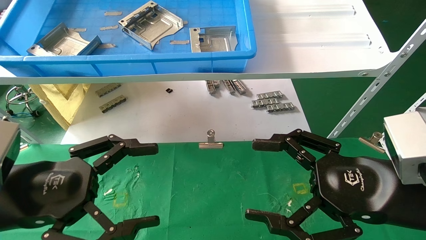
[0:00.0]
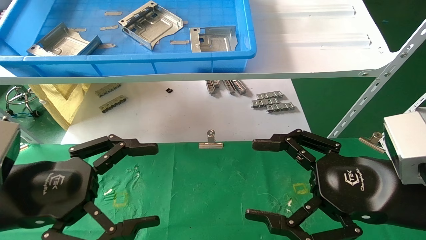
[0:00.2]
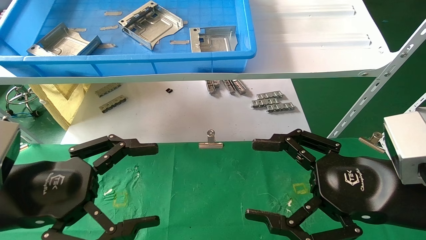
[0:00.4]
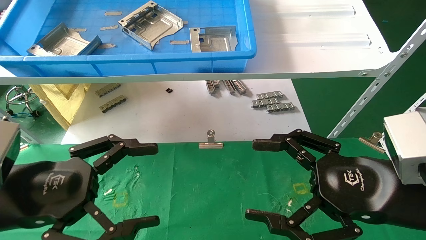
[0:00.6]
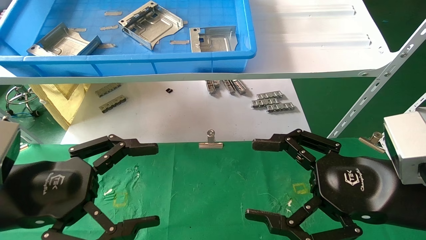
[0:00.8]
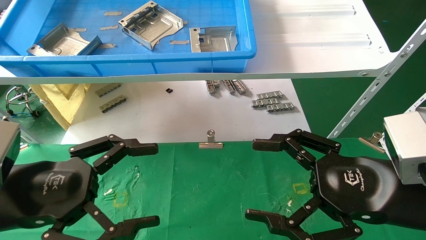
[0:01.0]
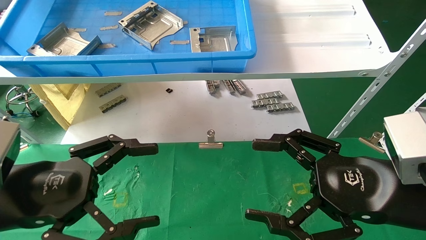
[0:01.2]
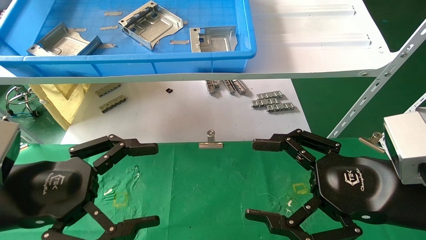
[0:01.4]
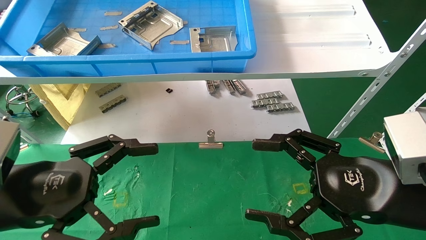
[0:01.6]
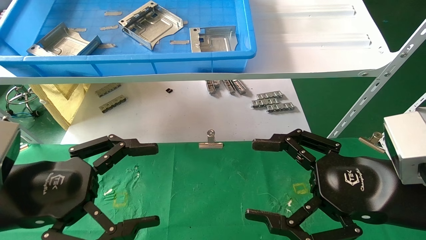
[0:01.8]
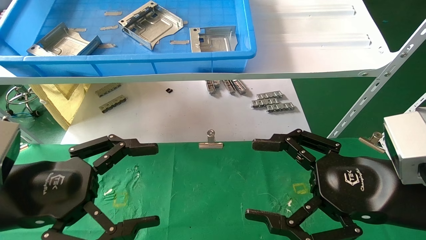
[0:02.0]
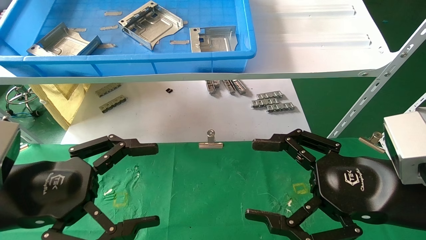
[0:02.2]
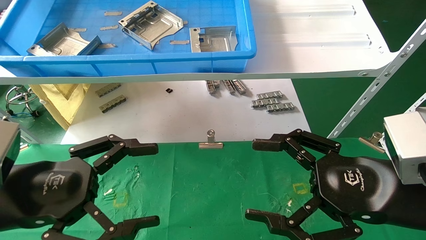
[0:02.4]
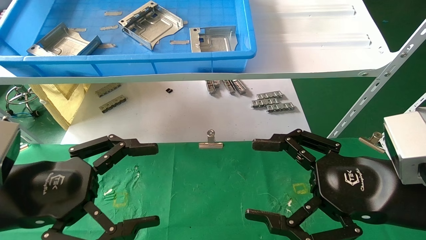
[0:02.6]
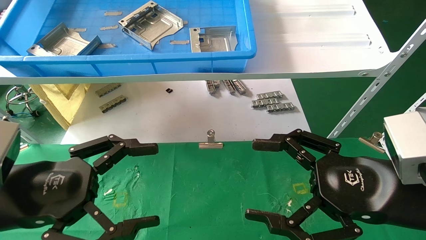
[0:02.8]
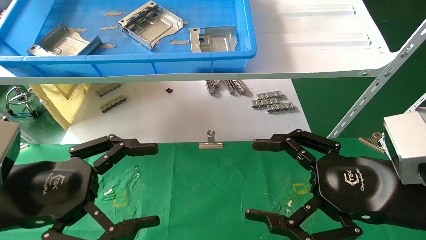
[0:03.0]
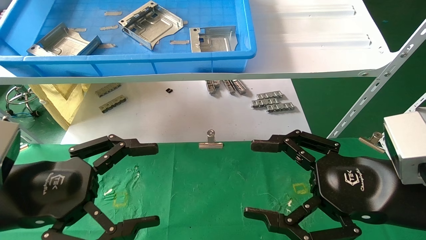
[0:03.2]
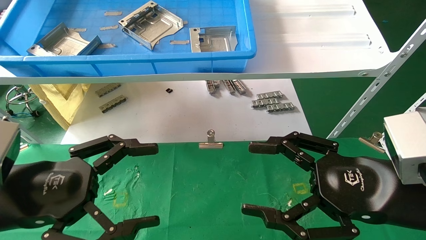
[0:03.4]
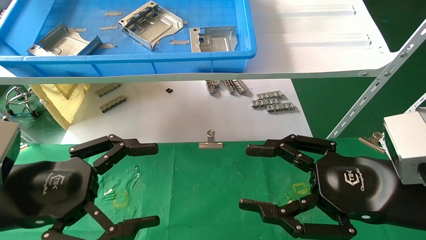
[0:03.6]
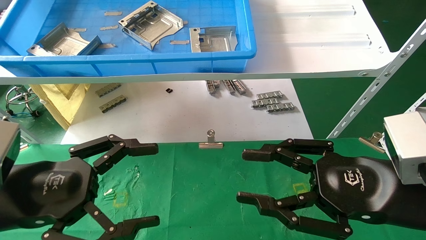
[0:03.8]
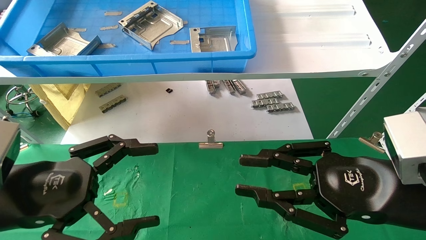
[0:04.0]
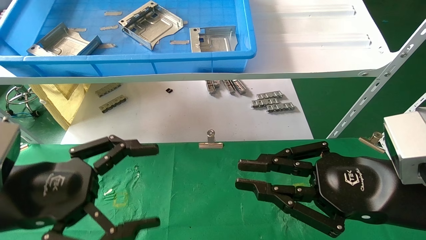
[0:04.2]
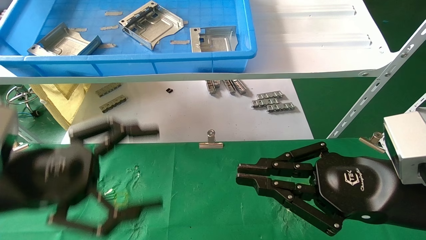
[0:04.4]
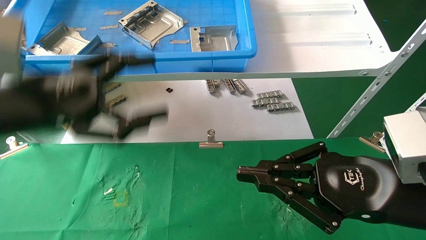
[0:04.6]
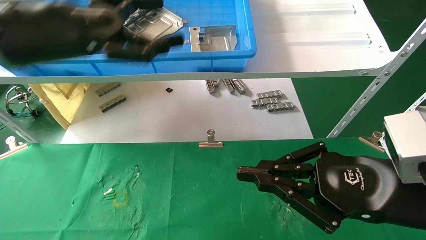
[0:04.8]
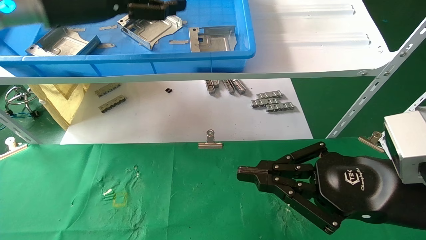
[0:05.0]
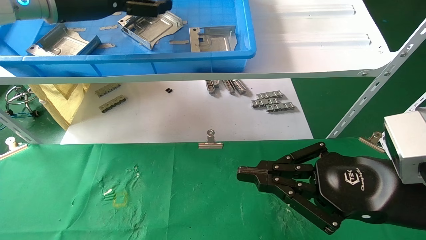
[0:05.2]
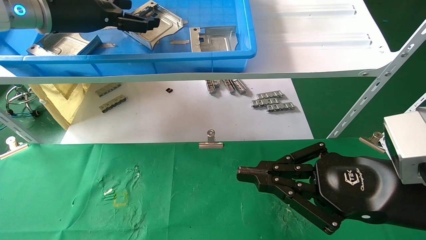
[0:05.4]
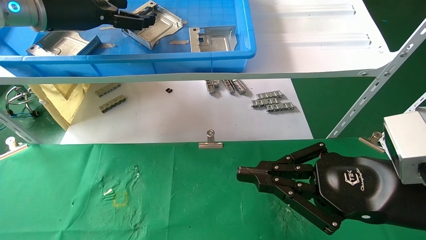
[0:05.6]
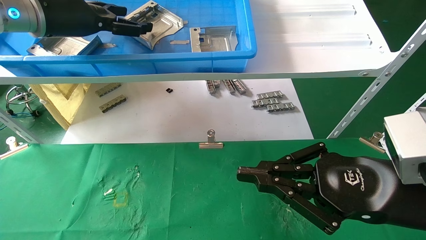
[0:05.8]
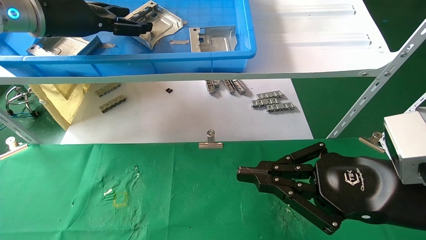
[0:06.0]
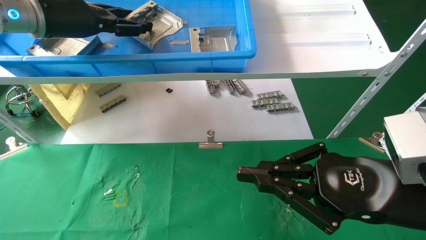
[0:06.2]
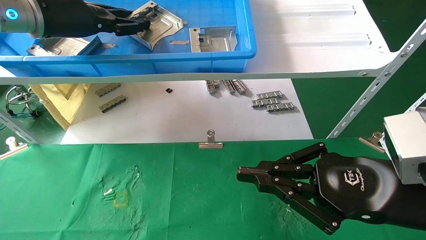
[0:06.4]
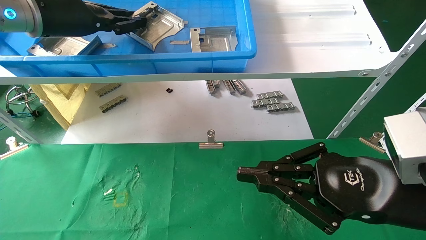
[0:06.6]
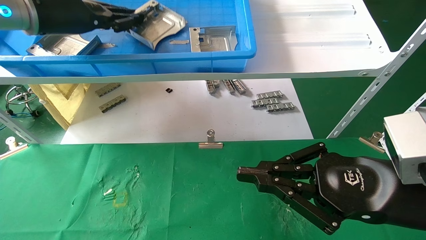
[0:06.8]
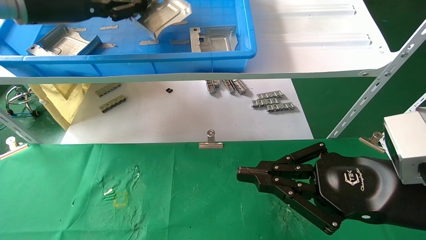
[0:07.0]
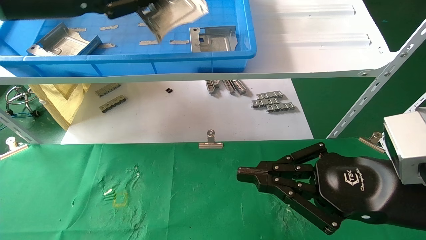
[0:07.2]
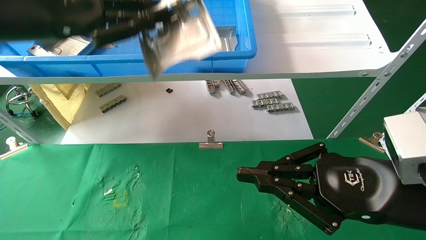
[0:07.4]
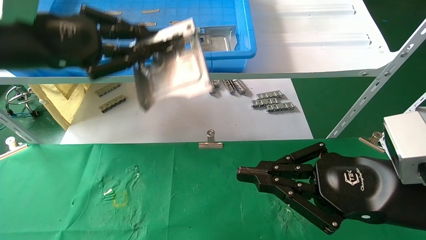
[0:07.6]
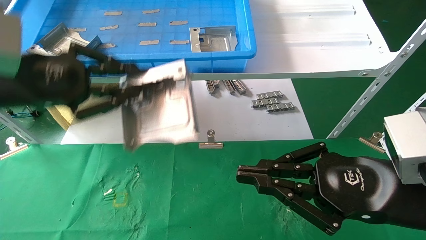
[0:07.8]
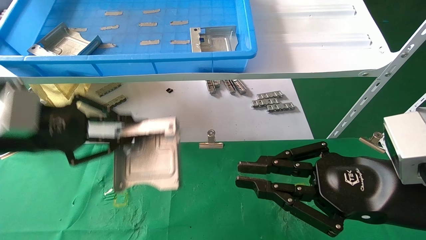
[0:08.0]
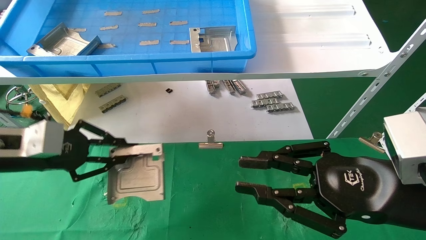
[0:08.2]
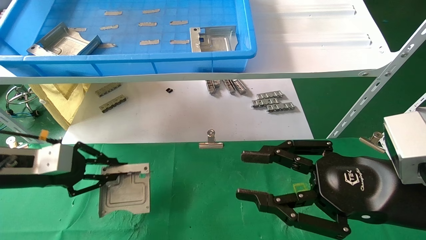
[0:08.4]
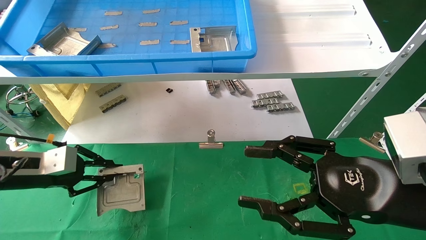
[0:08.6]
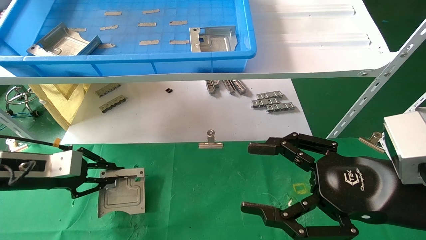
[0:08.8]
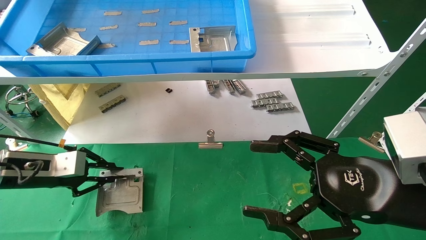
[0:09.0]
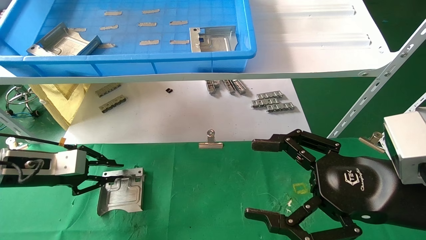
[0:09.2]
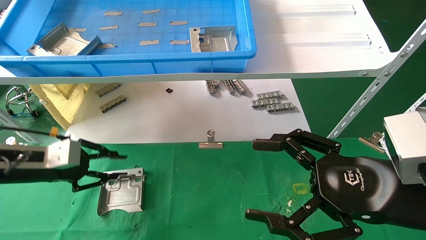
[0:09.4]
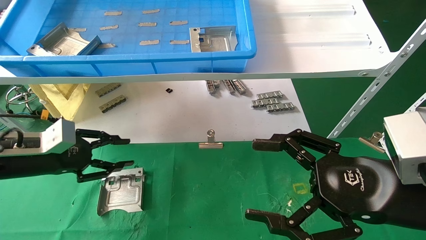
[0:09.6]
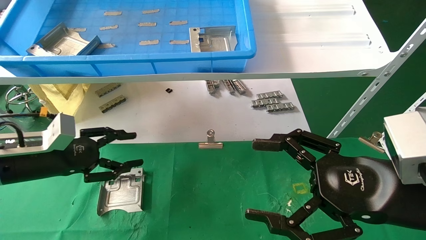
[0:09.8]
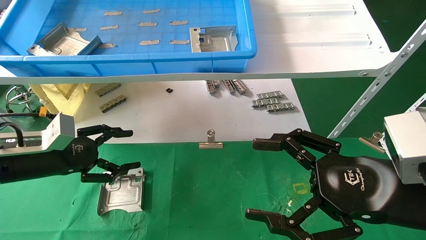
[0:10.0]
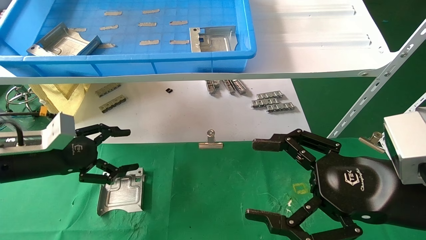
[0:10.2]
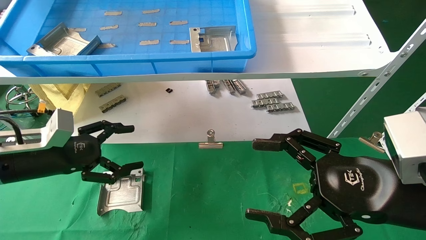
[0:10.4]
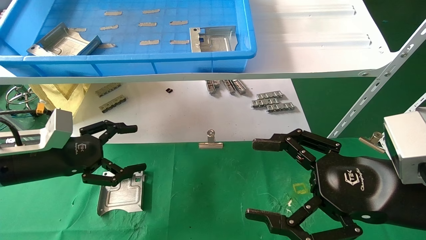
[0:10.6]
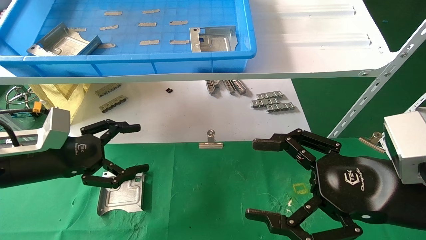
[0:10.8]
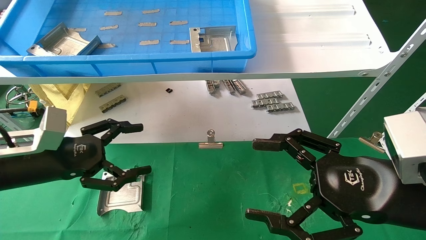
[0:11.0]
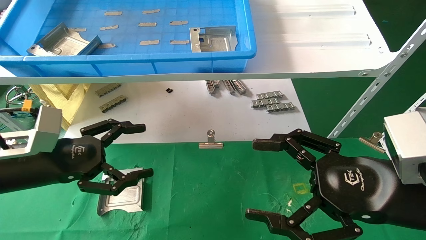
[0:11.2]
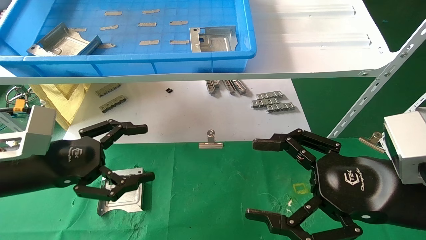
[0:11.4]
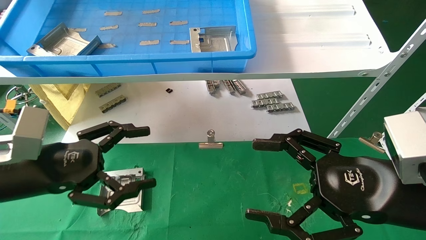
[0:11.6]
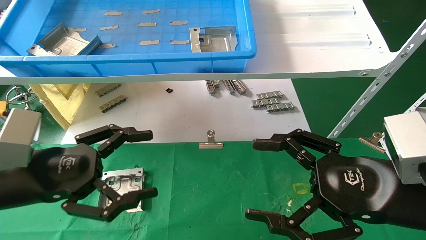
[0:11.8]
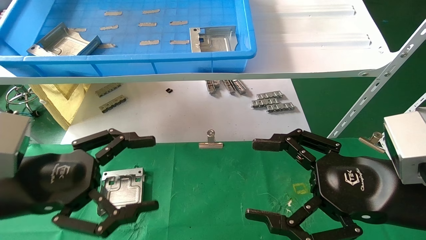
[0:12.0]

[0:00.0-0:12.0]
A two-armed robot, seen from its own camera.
Task of the whole recording: use the mechanical arm to pick up the parts and place them on the table.
Step, 0:04.6 to 0:06.8: Pick up the hard drive bracket from the feeding area.
Step, 0:07.0 to 0:09.4: Place the hard drive bracket into the box.
0:00.0 to 0:03.0: Both grippers stay about where they are.
0:03.0 to 0:04.4: The right gripper closes.
0:04.4 to 0:06.0: The left gripper moves forward and upward, approximately 25 cm.
0:06.0 to 0:07.6: The left gripper shifts some 10 cm backward, and closes its fingers.
0:07.6 to 0:09.0: The left gripper moves downward, roughly 20 cm, while the right gripper opens up.
0:09.0 to 0:10.4: The left gripper opens up.
0:10.4 to 0:12.0: The left gripper travels backward and to the right by approximately 10 cm.
